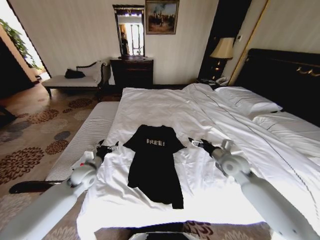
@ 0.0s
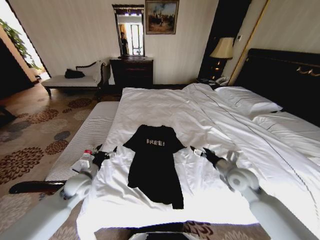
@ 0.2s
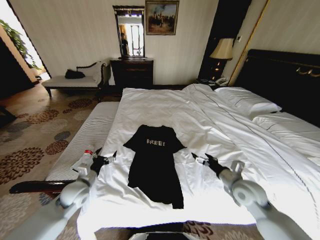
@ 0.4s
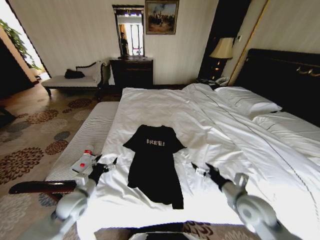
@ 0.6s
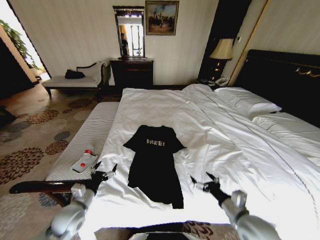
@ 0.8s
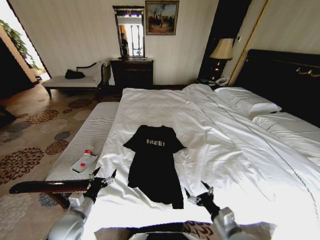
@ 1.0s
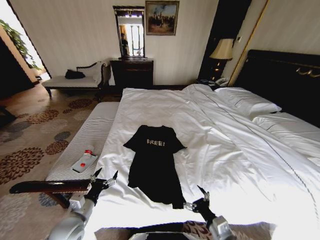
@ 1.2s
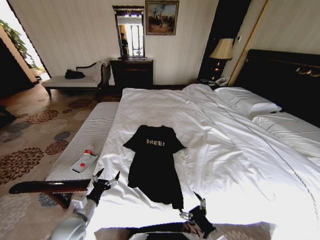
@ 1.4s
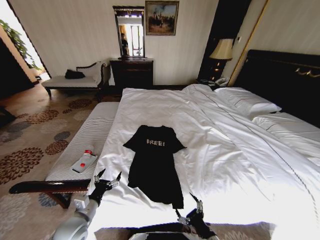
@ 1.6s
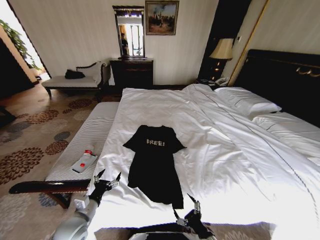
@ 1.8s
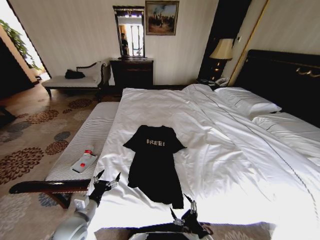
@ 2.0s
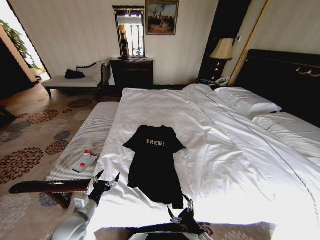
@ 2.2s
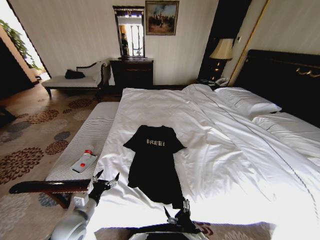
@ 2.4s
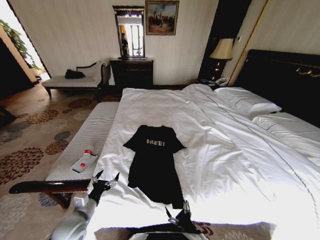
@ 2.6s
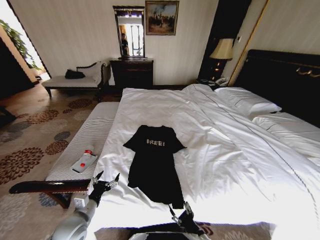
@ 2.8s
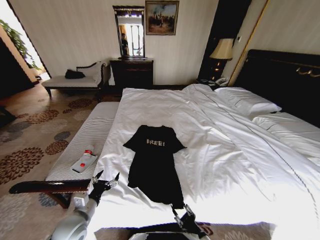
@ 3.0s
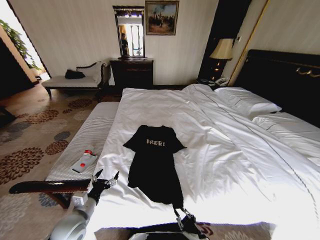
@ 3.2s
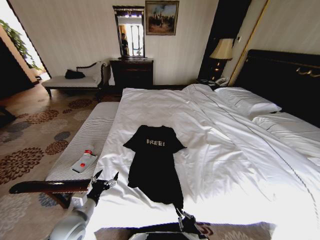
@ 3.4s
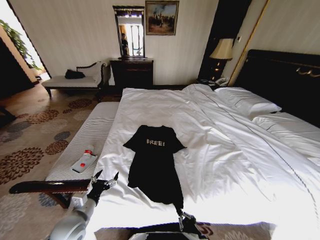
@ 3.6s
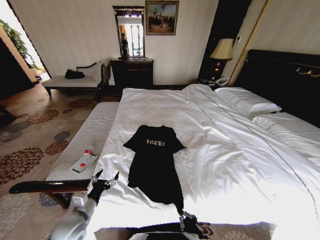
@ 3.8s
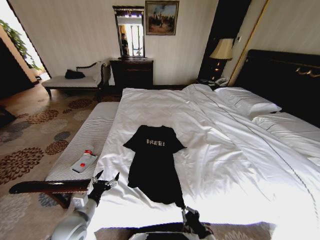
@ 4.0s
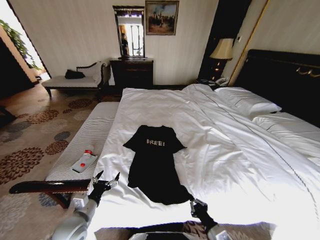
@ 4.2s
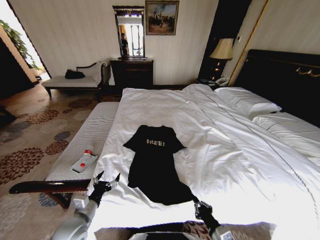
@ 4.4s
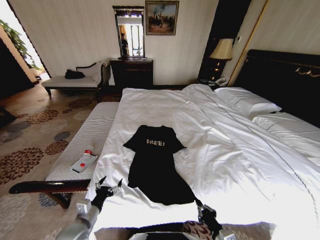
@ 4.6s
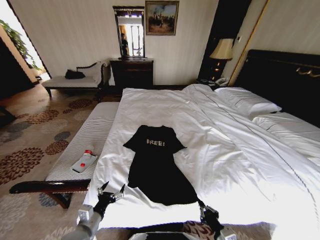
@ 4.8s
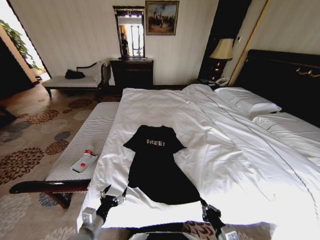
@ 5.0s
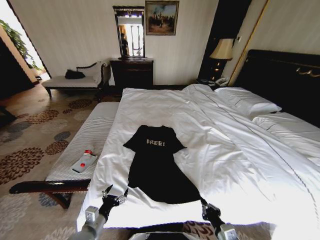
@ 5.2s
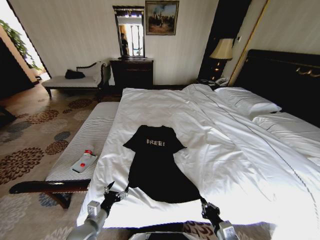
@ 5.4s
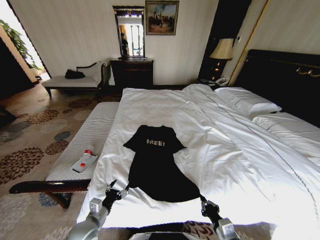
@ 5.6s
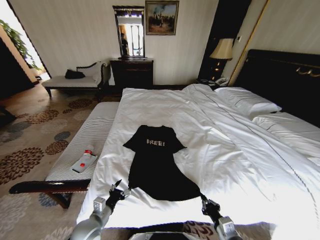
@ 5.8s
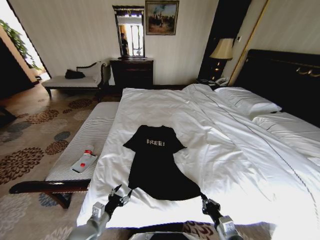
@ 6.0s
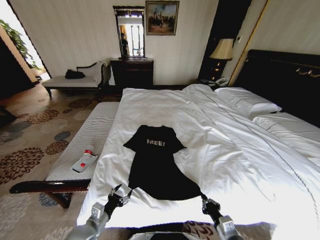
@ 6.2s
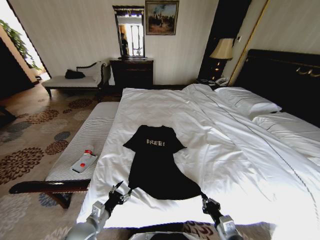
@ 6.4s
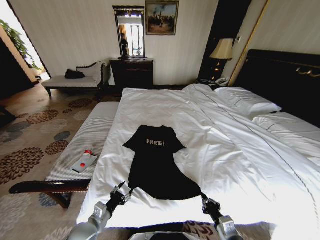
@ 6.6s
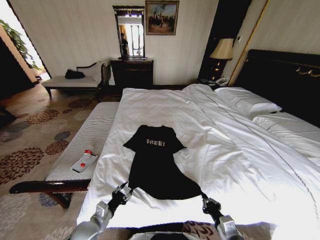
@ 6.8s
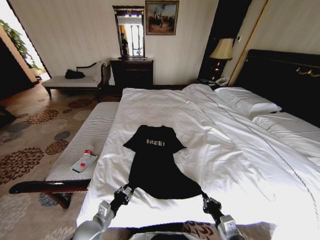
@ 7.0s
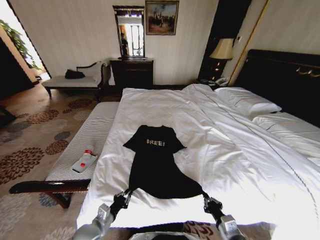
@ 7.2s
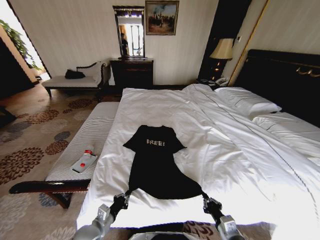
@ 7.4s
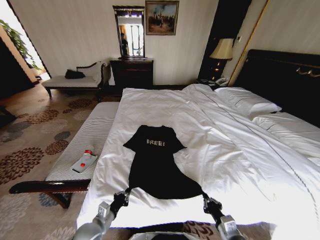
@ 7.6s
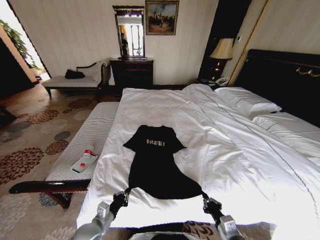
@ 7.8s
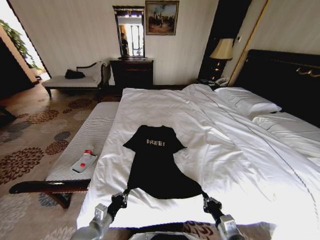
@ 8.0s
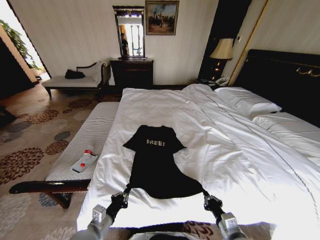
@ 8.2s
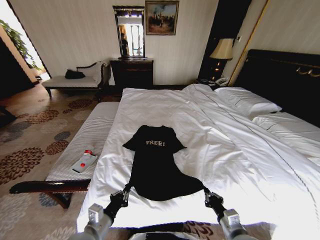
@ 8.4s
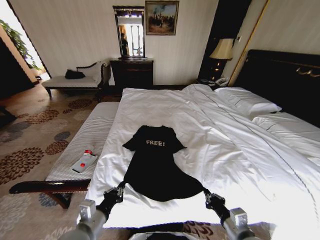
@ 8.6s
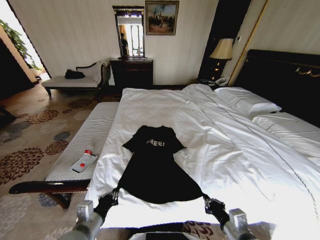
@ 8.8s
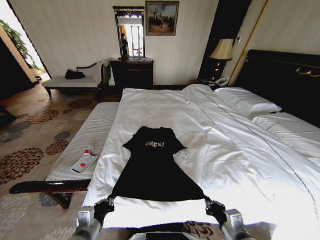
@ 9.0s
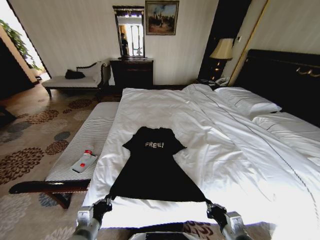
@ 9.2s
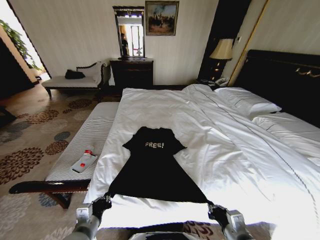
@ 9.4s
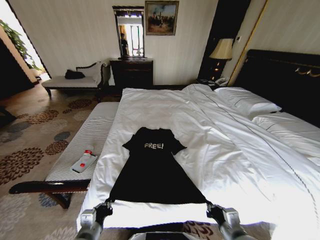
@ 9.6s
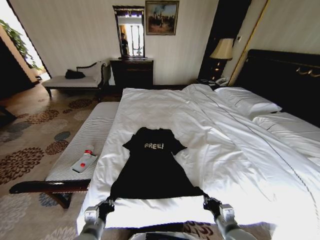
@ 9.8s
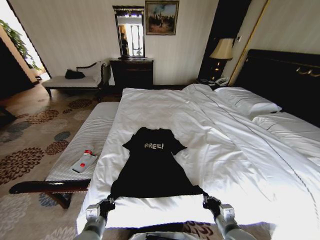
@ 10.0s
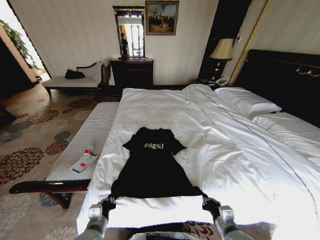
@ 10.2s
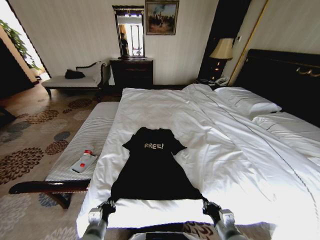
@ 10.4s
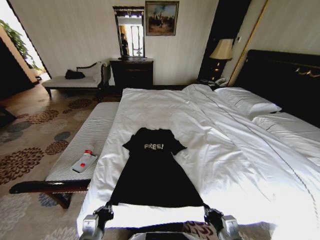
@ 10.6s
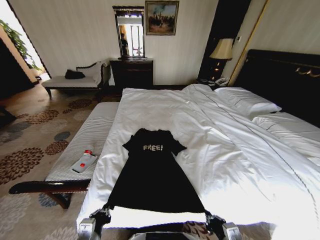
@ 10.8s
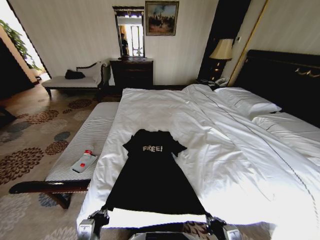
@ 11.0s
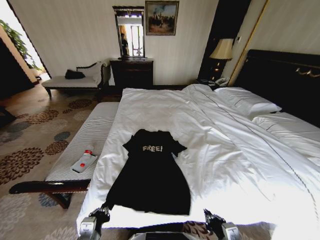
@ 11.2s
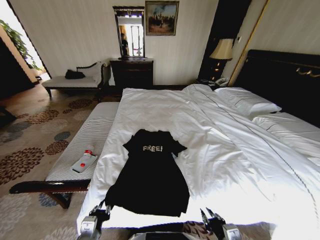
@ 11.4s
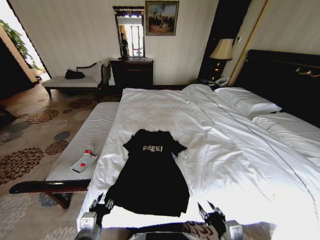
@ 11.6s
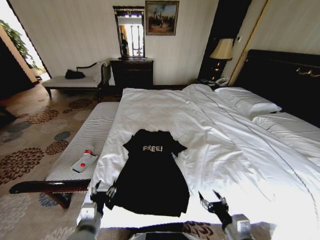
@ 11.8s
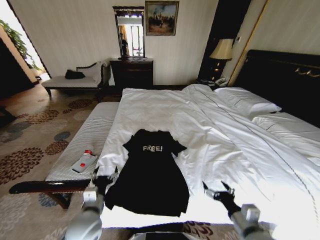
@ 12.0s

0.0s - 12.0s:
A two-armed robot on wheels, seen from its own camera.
Task of the whole recording: Fold the clothes on the bed.
0.0s - 1.6s: The right gripper travels backward and downward by about 35 cm; the left gripper shifts about 20 cm backward.
1.6s - 3.0s: The right gripper closes.
3.0s - 4.4s: The right gripper moves about 5 cm, and closes up.
4.4s - 6.0s: The left gripper moves approximately 5 cm.
6.0s - 7.6s: The left gripper closes up.
7.6s - 9.0s: Both grippers move upward, about 10 cm.
9.0s - 10.4s: Both grippers travel together downward, roughly 5 cm.
10.4s - 12.0s: Both grippers move upward, roughly 5 cm. The right gripper opens. Meanwhile the left gripper opens up.

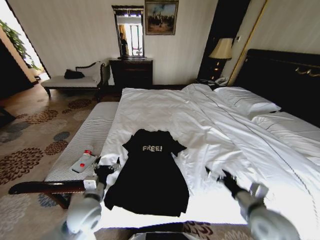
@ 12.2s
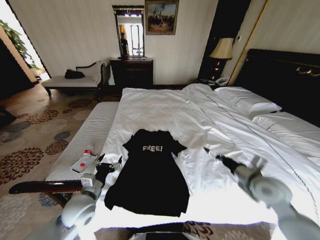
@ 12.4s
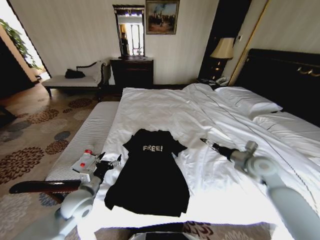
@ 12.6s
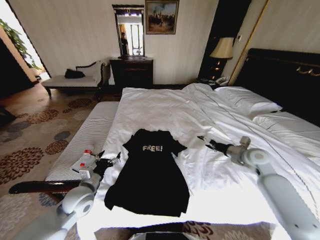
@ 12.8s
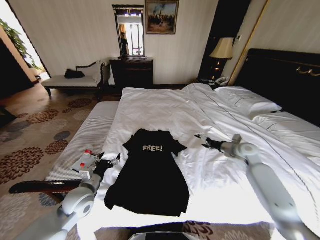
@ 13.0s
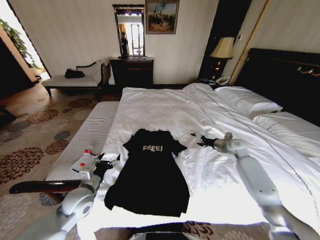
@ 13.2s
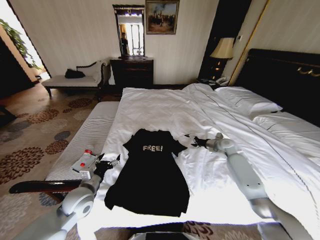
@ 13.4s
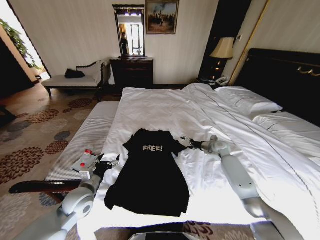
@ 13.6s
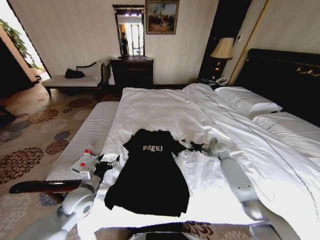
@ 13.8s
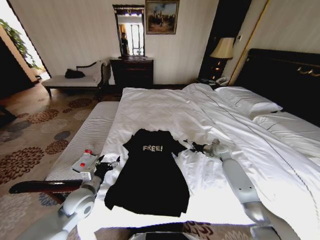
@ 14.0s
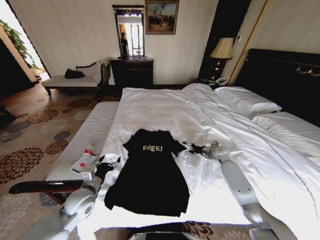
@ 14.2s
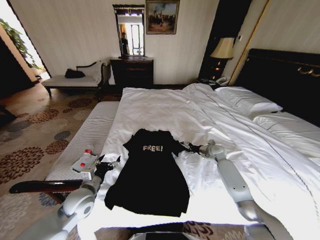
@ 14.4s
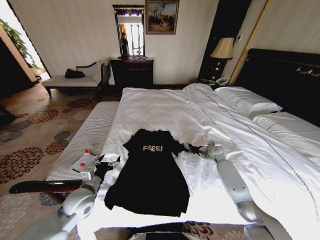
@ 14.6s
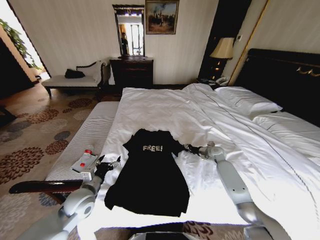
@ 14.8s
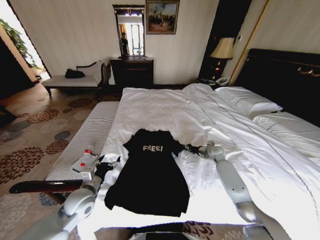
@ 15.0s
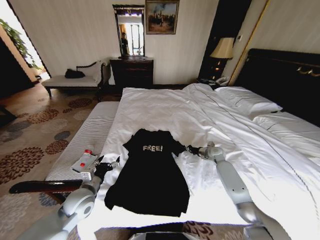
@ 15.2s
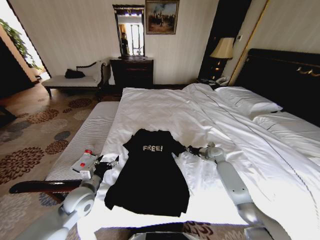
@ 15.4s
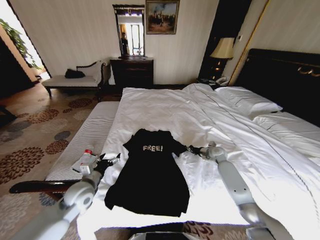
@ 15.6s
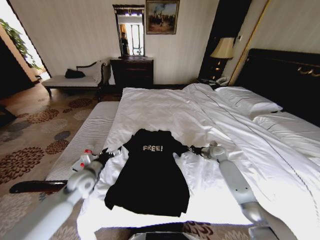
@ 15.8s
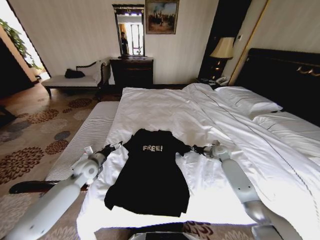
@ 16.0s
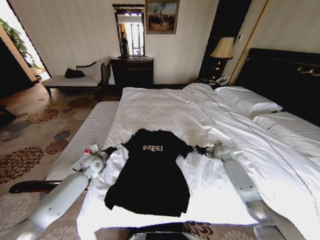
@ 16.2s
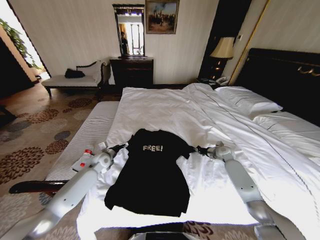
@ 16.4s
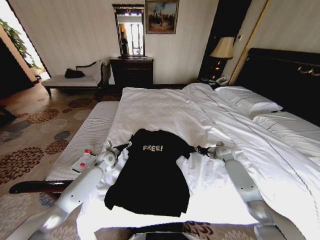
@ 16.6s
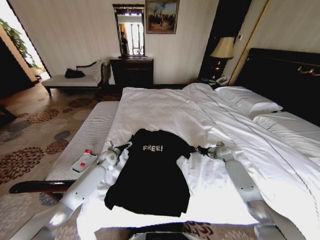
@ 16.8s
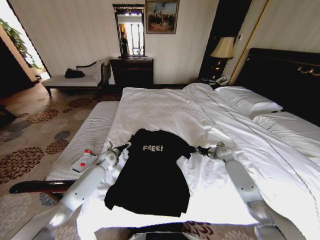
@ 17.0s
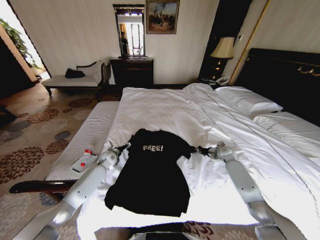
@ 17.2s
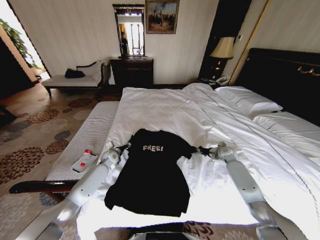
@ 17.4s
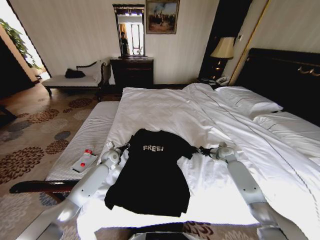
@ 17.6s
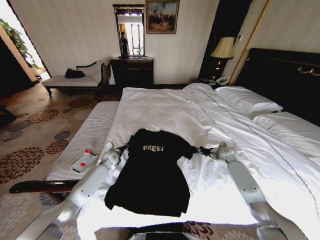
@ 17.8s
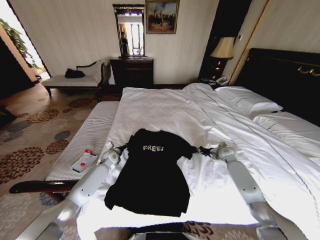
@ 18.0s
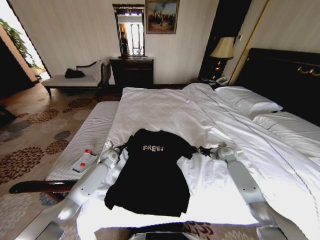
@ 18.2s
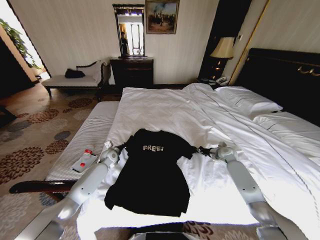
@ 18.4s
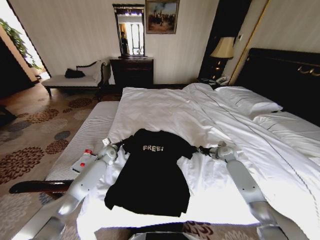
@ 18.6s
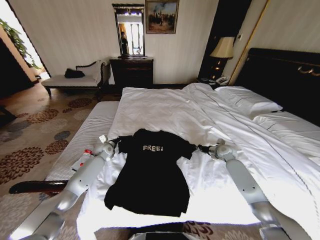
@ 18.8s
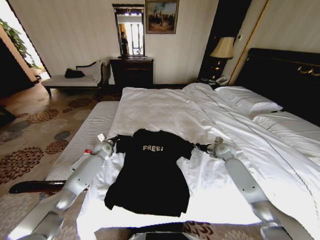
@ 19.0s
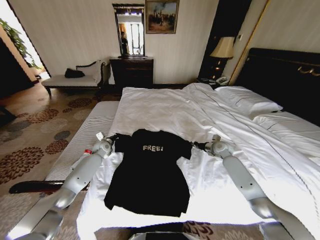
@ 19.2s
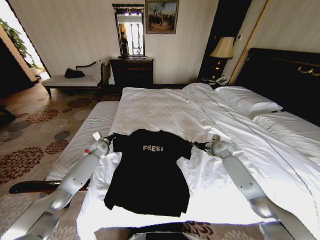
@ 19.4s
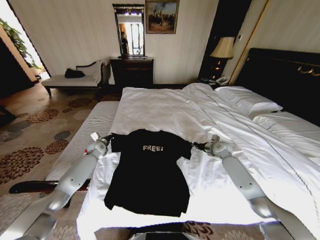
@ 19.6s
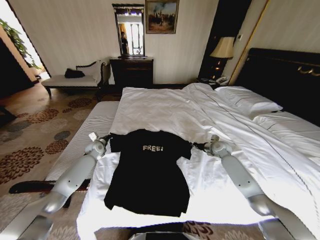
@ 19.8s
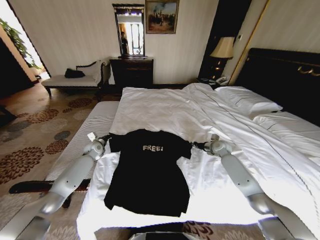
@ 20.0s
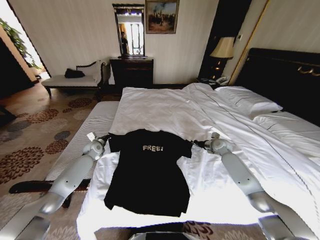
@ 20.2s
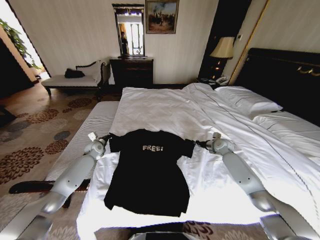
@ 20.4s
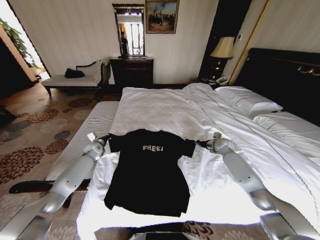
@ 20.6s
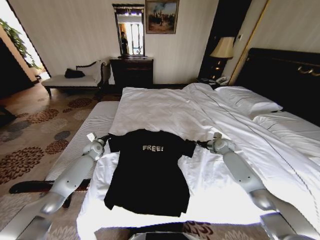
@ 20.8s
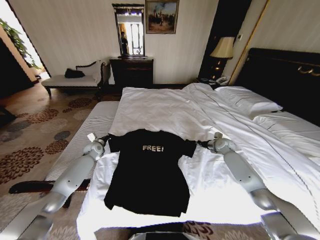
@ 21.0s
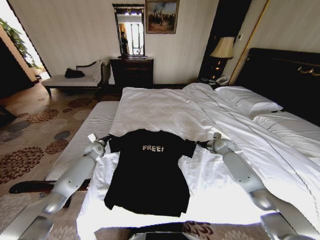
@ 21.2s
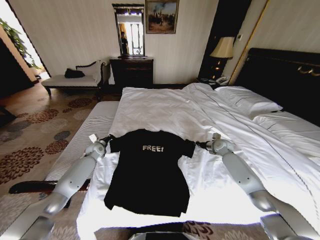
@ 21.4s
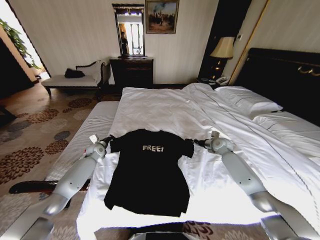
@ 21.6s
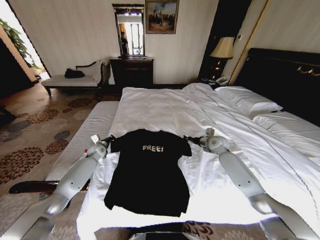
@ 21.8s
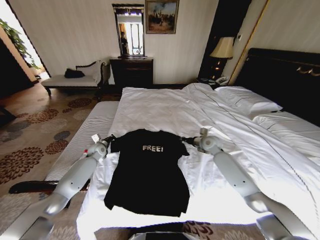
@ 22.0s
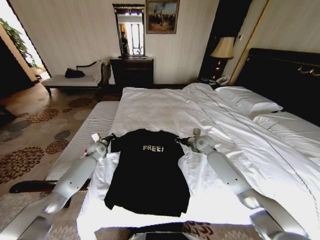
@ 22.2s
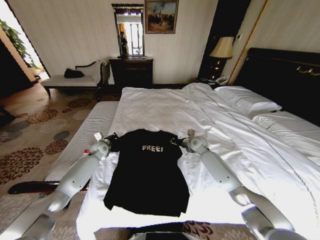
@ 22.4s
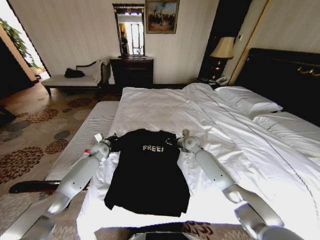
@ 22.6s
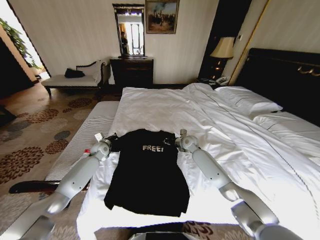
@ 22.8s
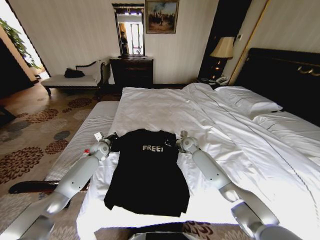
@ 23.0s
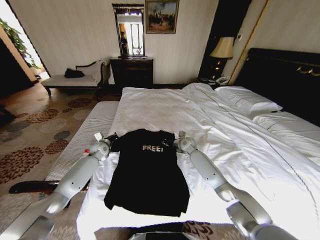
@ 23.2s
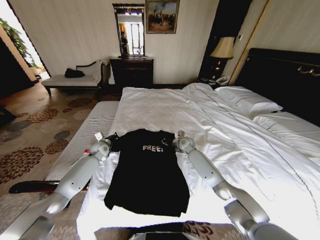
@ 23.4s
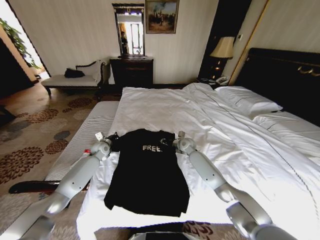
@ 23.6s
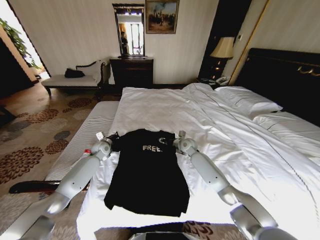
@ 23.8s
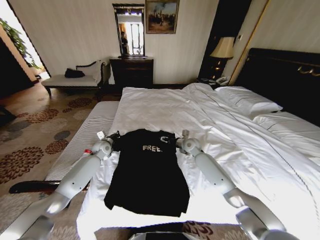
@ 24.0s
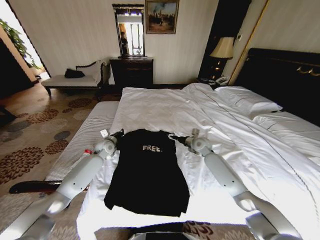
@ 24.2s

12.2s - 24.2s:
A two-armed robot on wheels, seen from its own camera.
Task of the whole recording: Fold the clothes on the bed.
12.2s - 13.8s: The left gripper travels to the left by roughly 5 cm. Meanwhile the right gripper travels forward by some 35 cm.
13.8s - 15.2s: The right gripper closes up.
15.2s - 16.6s: The right gripper travels to the right by some 5 cm. The left gripper travels forward by roughly 20 cm.
16.6s - 18.2s: The left gripper closes.
18.2s - 19.8s: The right gripper ends up approximately 5 cm from where it was. The left gripper goes some 10 cm to the left.
19.8s - 21.2s: The grippers stay close to where they were, moving slightly.
21.2s - 22.6s: The right gripper shifts some 20 cm to the left.
22.6s - 24.2s: The left gripper shifts by roughly 5 cm; the right gripper opens up.
